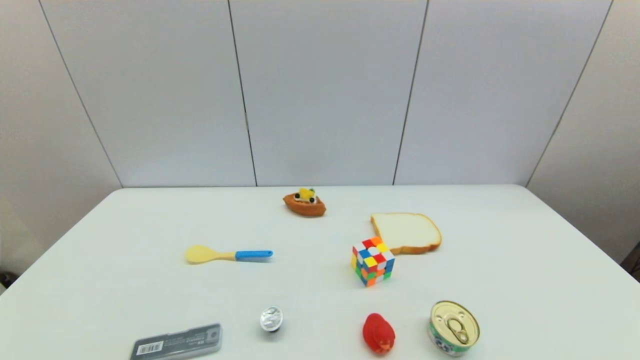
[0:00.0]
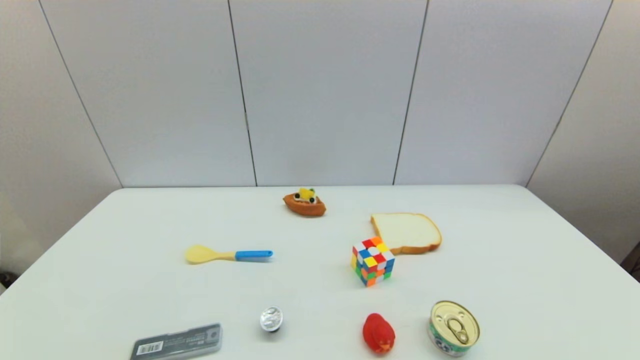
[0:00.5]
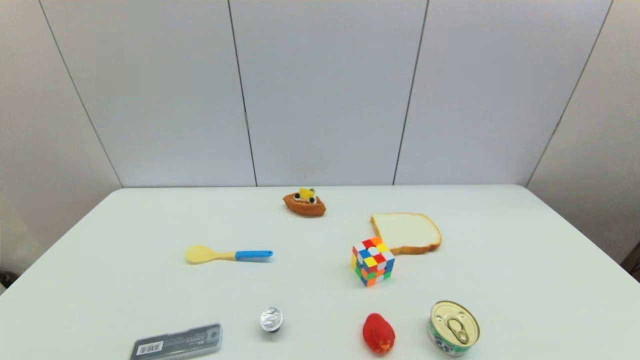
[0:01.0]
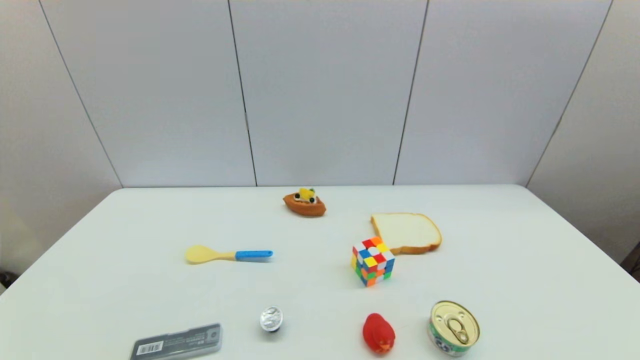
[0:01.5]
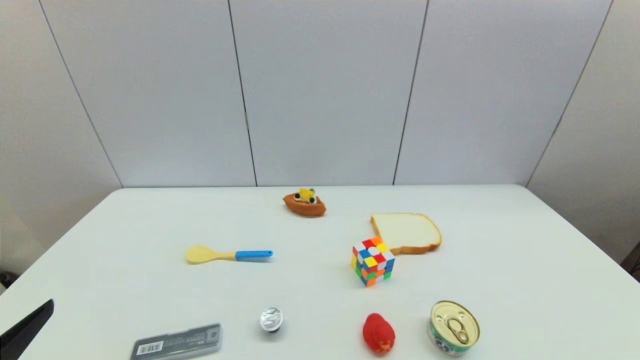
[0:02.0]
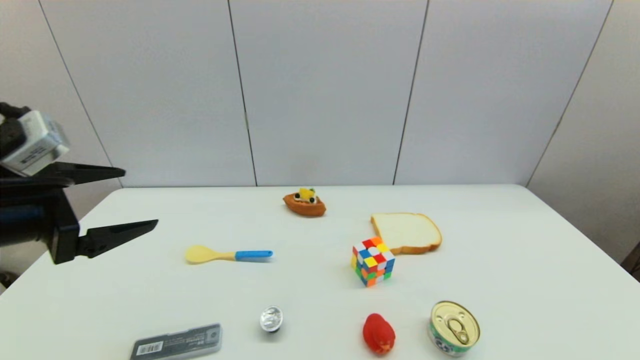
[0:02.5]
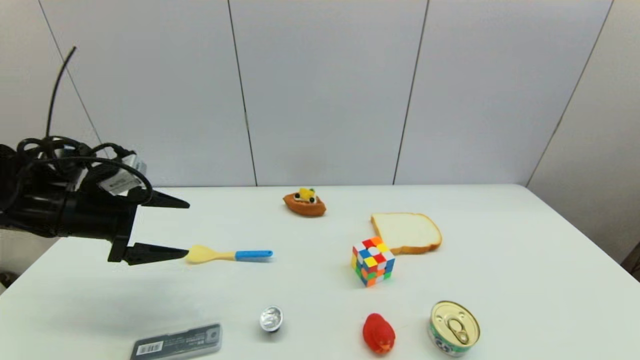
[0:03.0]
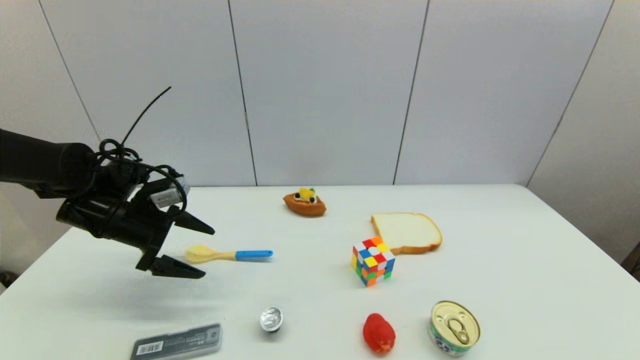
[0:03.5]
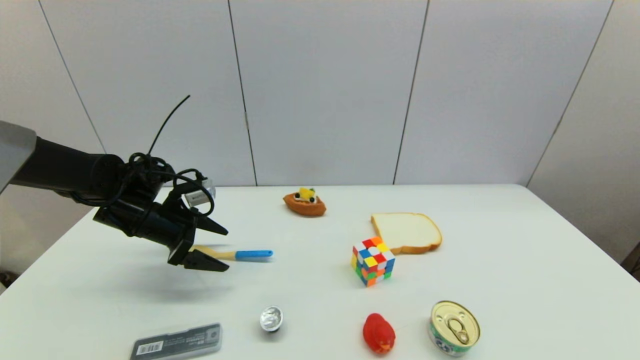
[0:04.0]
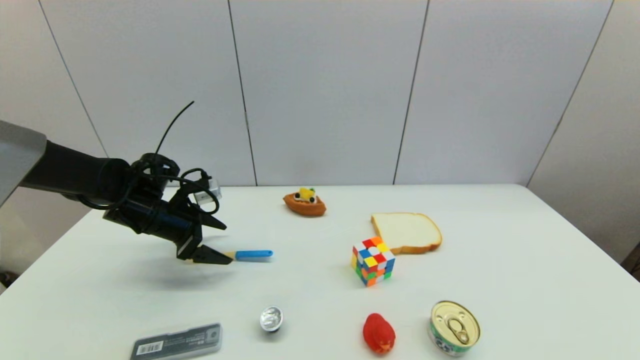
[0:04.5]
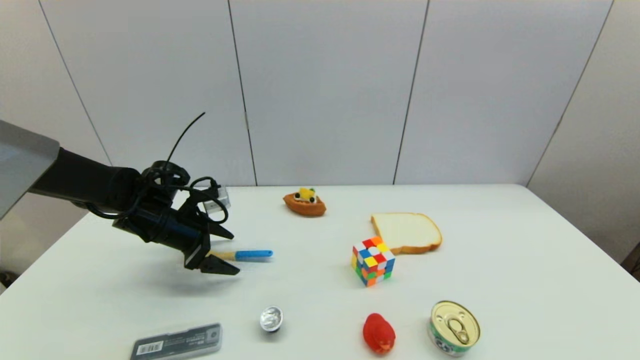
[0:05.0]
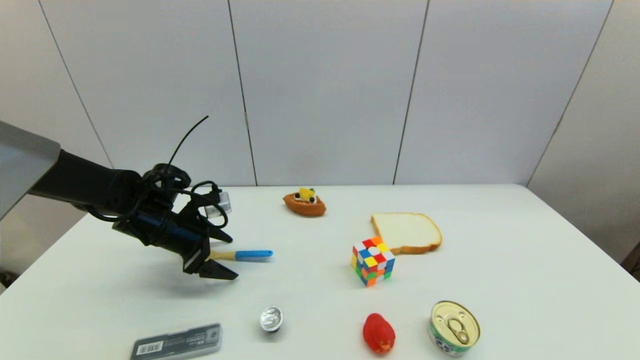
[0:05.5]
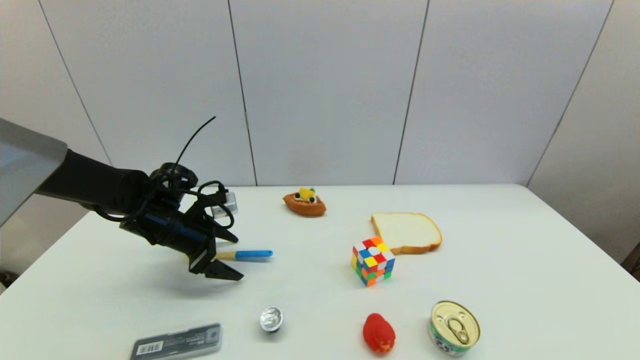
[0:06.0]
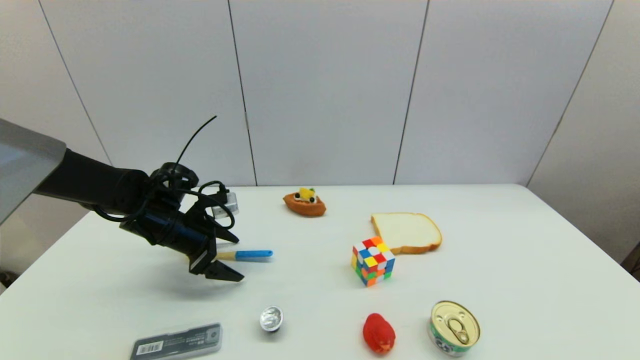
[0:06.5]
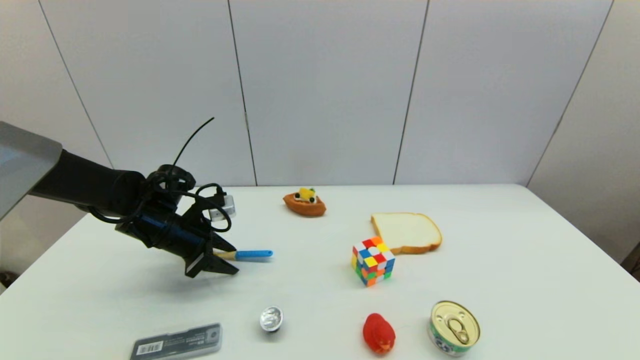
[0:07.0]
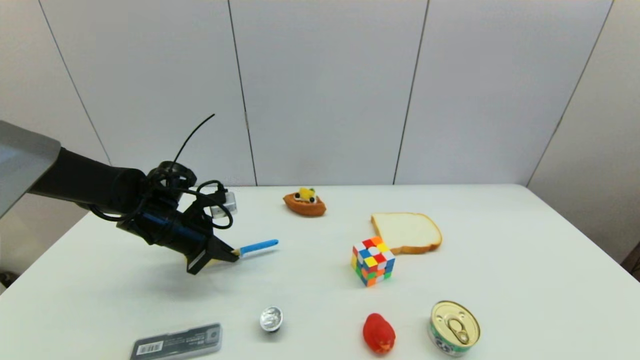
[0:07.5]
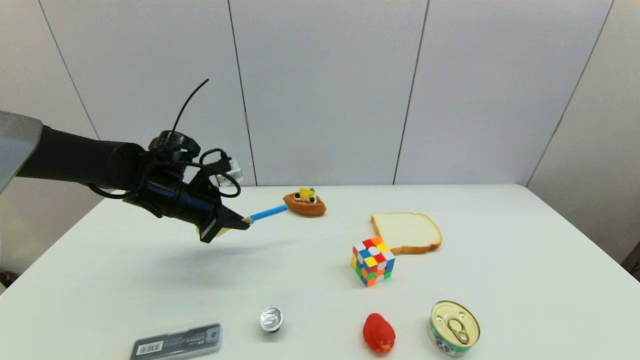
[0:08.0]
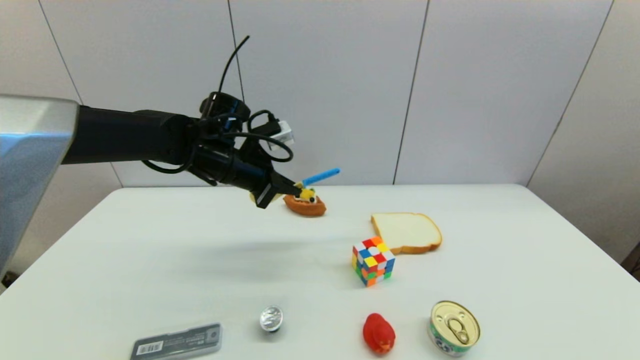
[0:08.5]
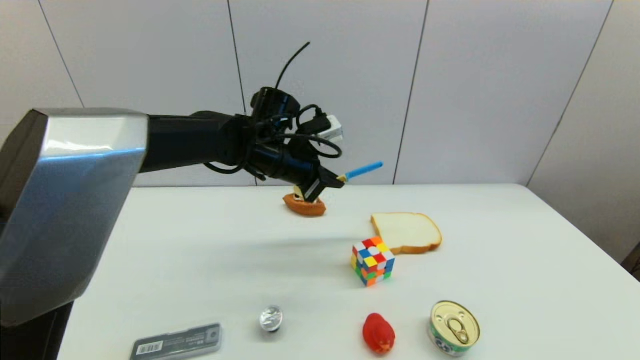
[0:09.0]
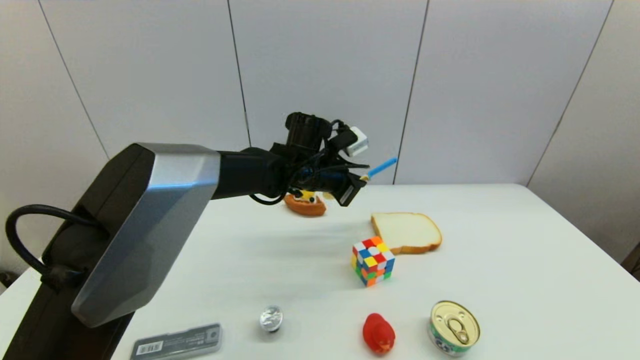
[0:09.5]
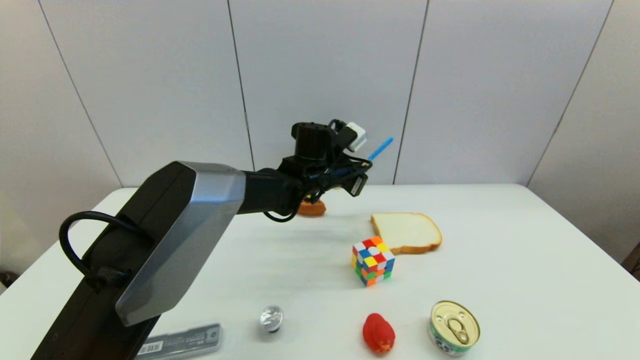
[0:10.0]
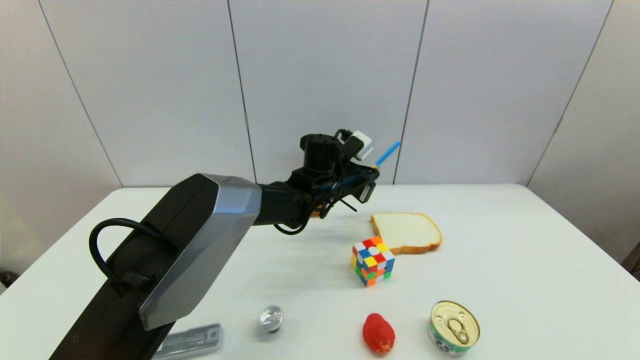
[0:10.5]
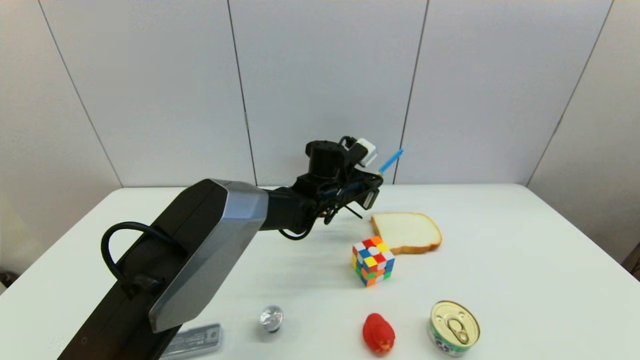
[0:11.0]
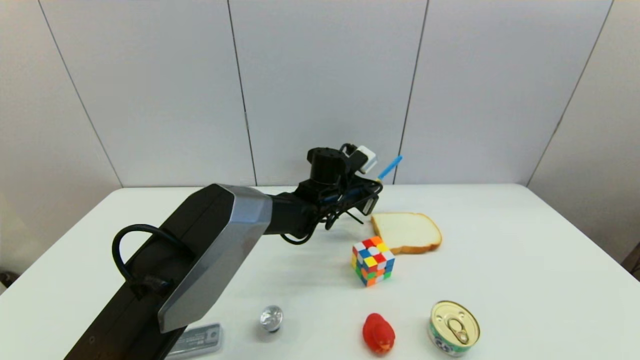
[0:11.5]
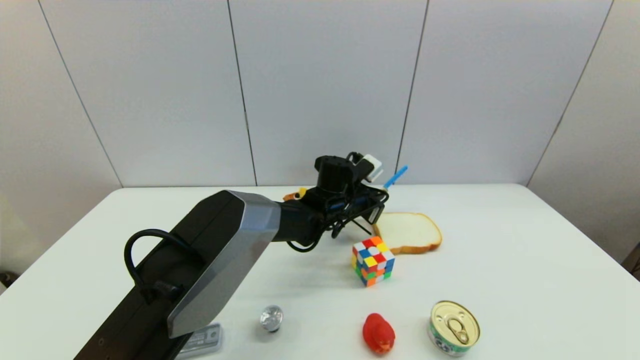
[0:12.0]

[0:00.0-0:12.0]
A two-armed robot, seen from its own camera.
Step, 0:02.0 to 0:07.0: Grasp the spoon with left gripper.
0:00.0 to 0:02.0: The left gripper heads upward and forward, covering some 15 cm.
0:02.0 to 0:04.0: The left gripper moves forward, some 30 cm.
0:04.0 to 0:06.0: There are only small adjustments of the grippers.
0:06.0 to 0:08.0: The left gripper heads upward, covering roughly 5 cm, and closes its fingers.
0:08.0 to 0:10.0: The left gripper moves to the right, about 25 cm.
0:10.0 to 0:12.0: The left gripper goes about 5 cm downward.

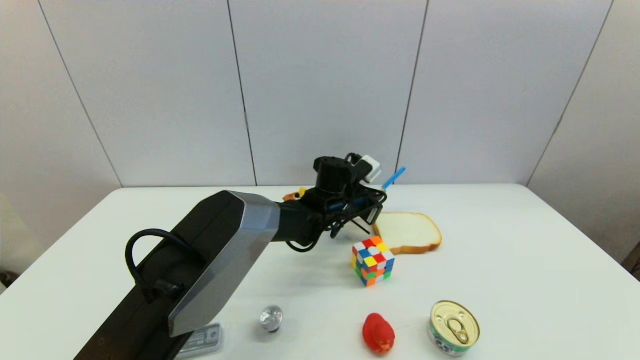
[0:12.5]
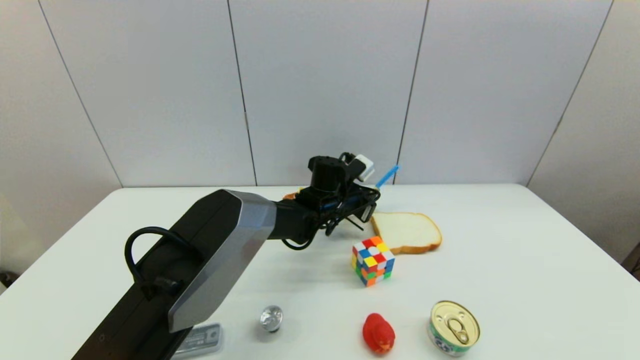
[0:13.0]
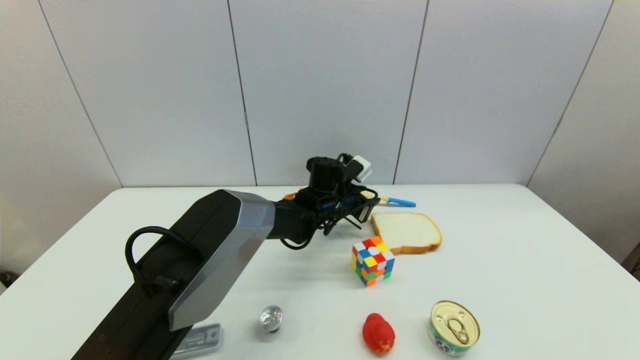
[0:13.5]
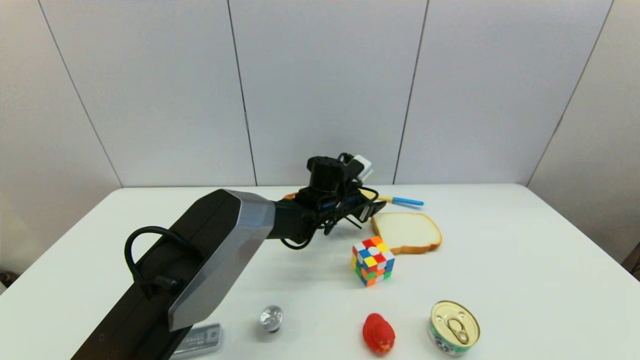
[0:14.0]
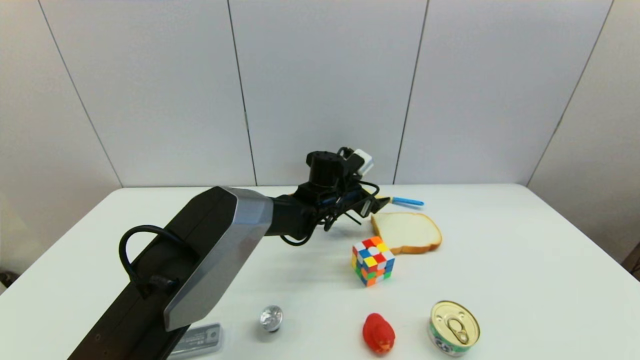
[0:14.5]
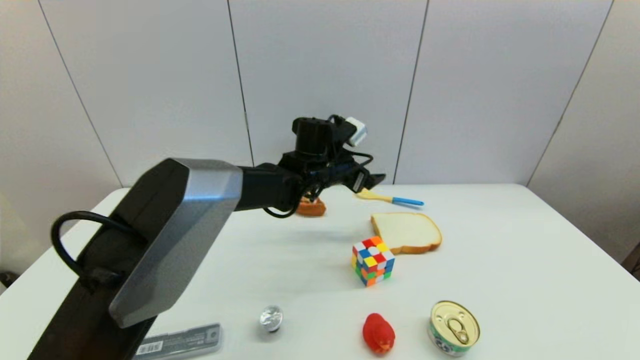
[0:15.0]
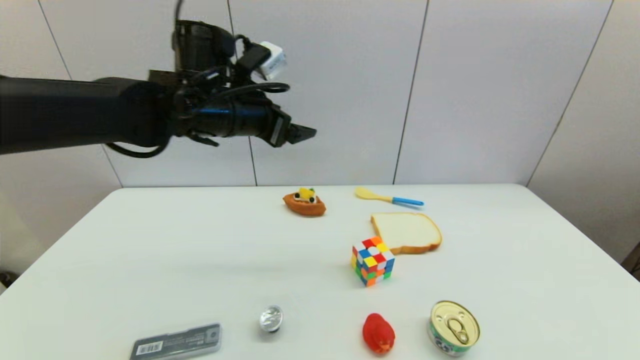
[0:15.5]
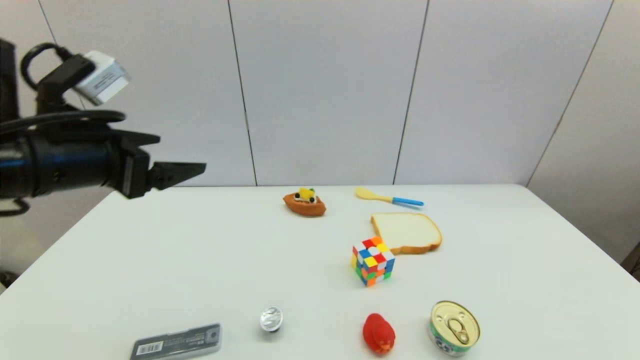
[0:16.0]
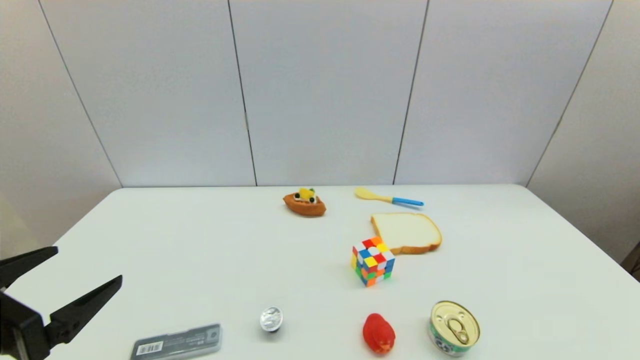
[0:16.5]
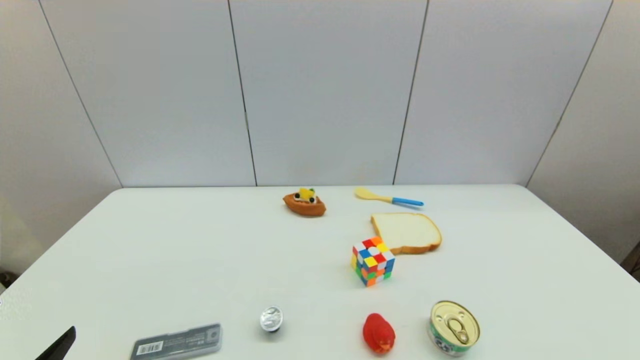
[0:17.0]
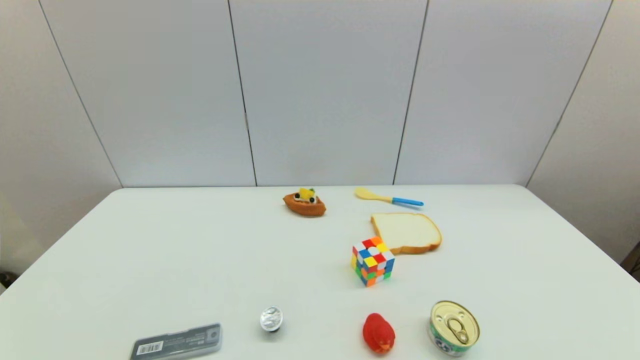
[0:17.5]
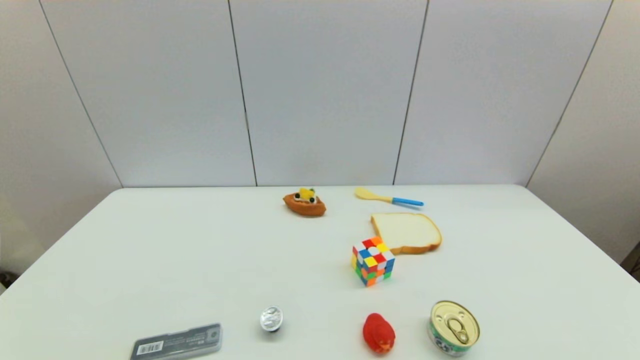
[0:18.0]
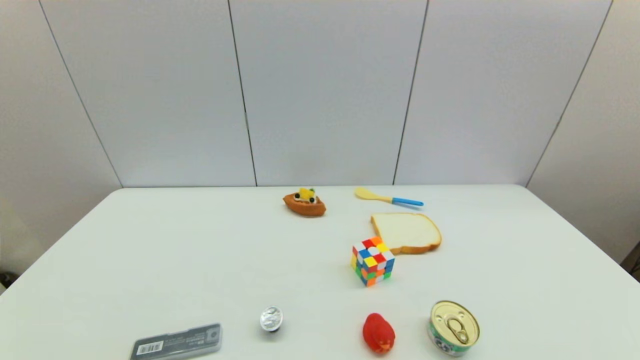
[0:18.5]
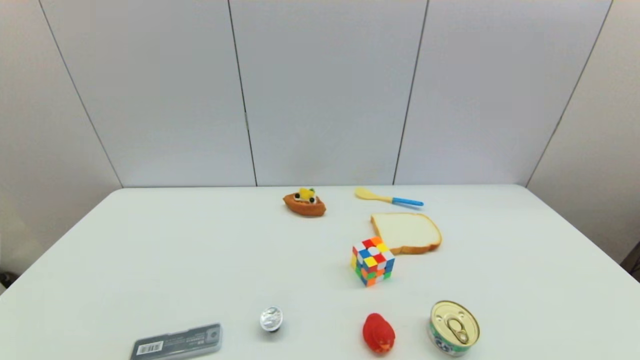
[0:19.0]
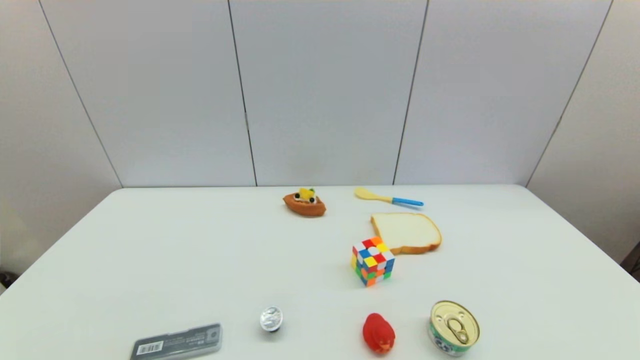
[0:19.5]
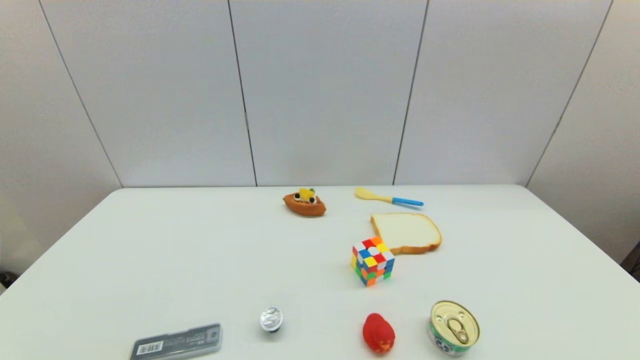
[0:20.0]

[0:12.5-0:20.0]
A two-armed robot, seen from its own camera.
0:12.5 to 0:14.5: The left gripper opens its fingers.
0:14.5 to 0:16.5: The left gripper travels backward and to the left by approximately 50 cm.
0:16.5 to 0:18.0: The left gripper goes roughly 15 cm backward and downward.
0:18.0 to 0:20.0: Both grippers stay about where they are.
